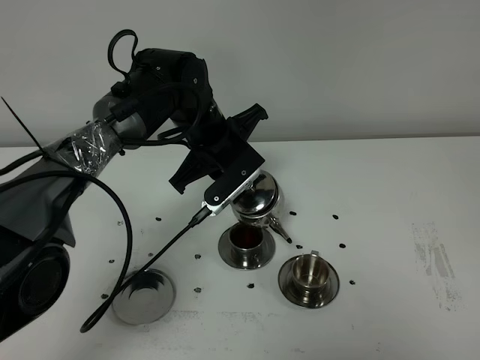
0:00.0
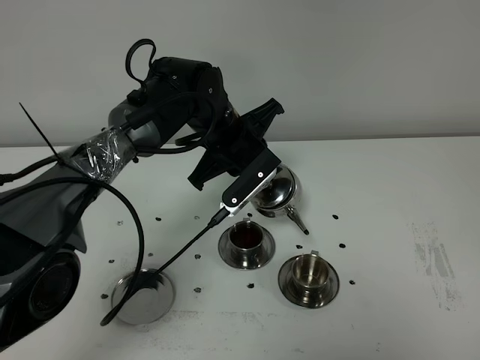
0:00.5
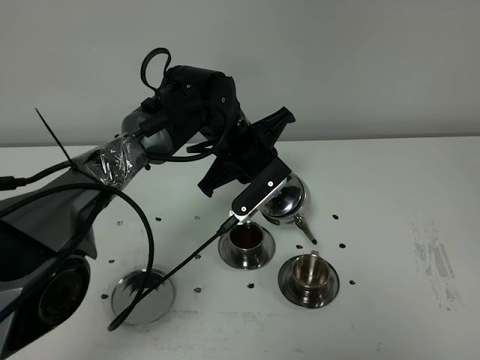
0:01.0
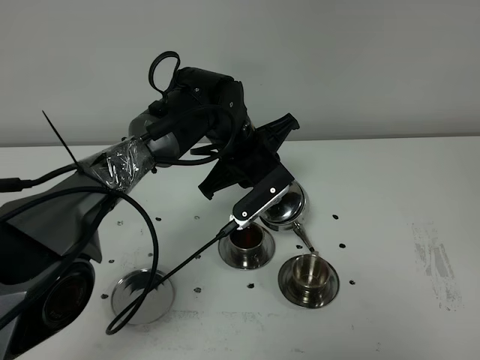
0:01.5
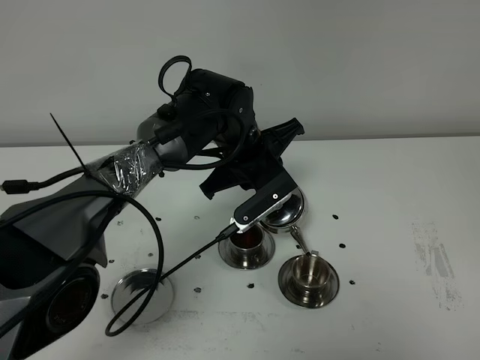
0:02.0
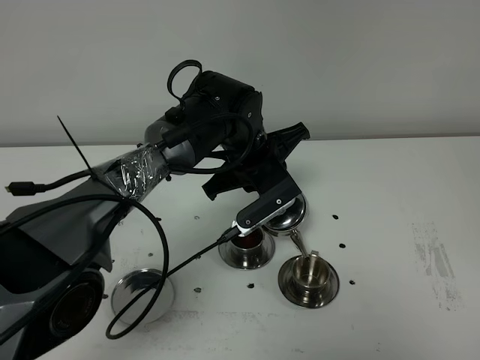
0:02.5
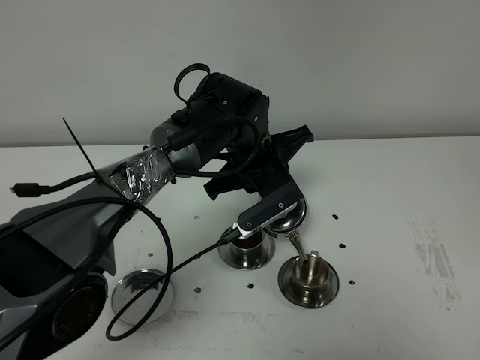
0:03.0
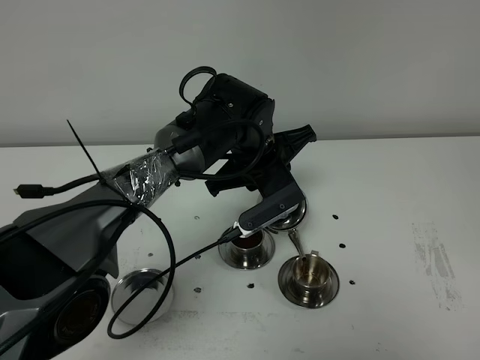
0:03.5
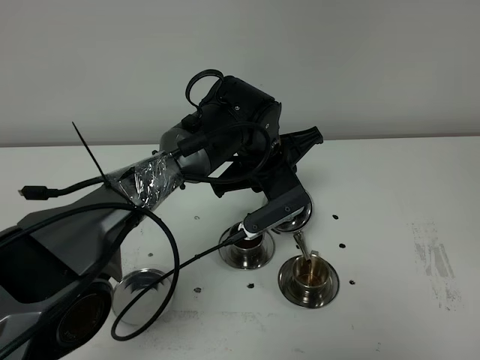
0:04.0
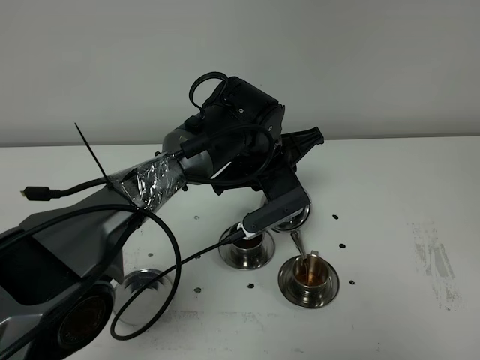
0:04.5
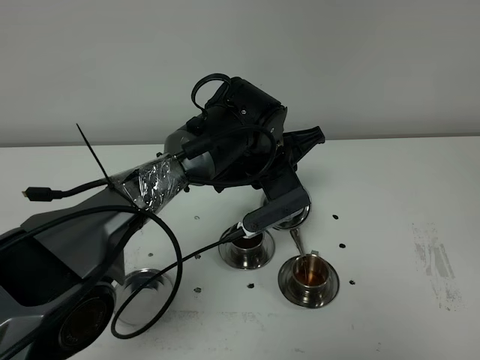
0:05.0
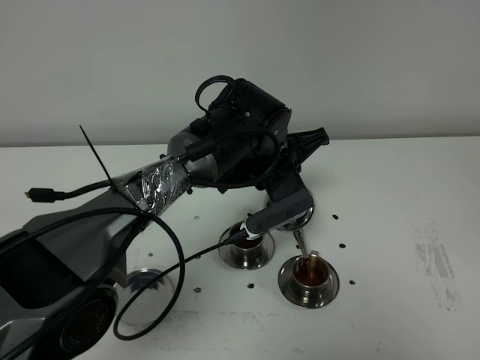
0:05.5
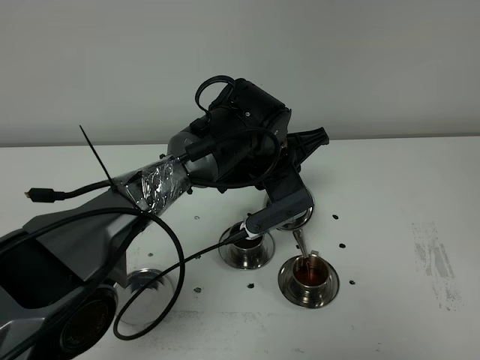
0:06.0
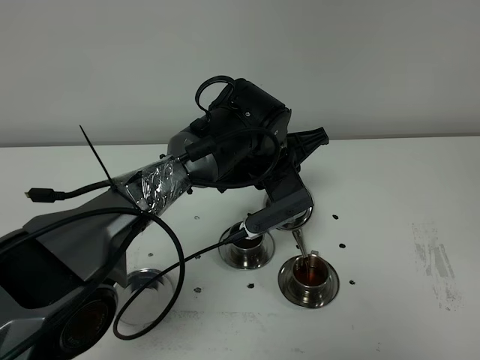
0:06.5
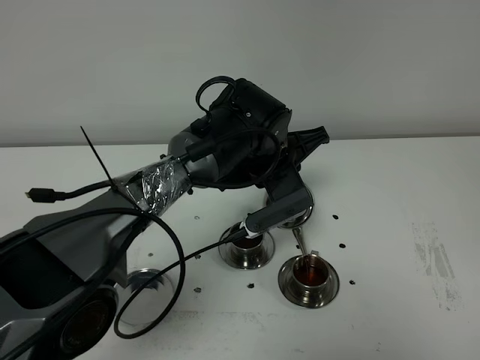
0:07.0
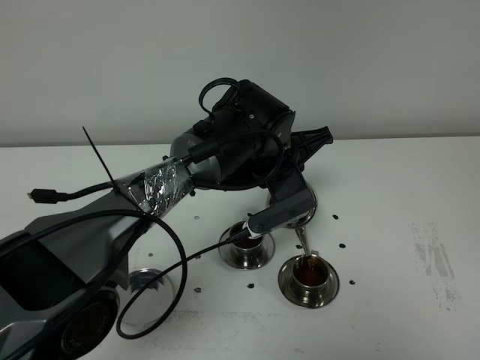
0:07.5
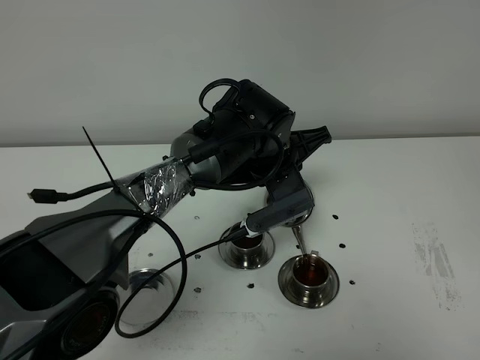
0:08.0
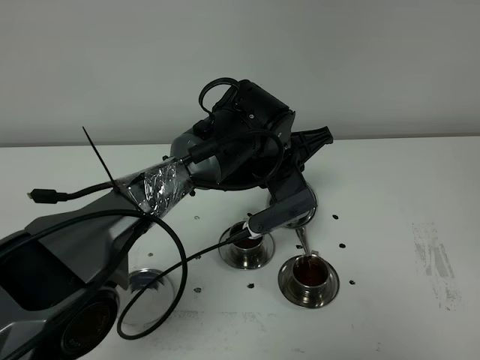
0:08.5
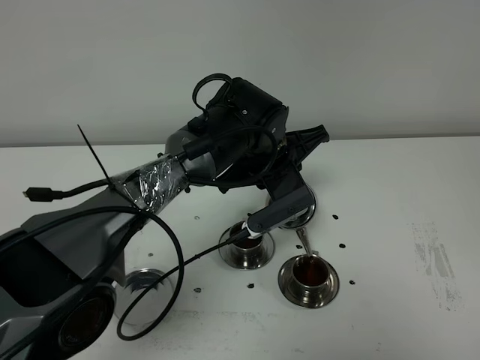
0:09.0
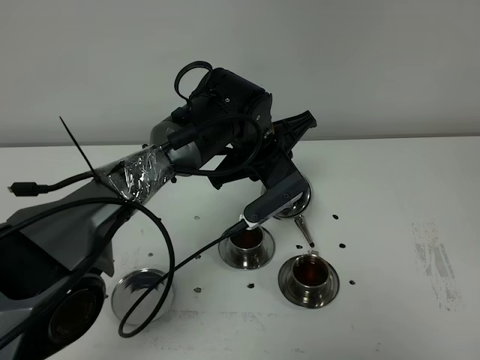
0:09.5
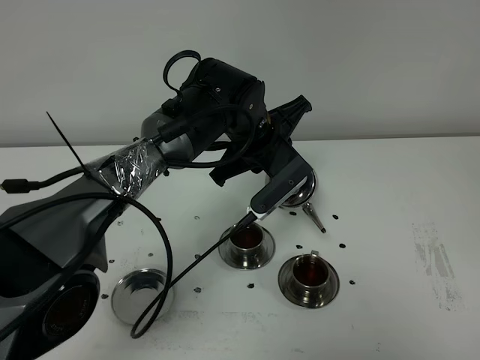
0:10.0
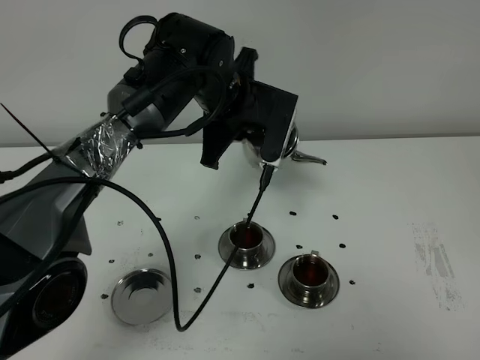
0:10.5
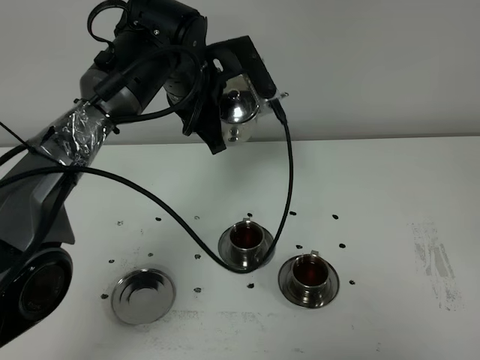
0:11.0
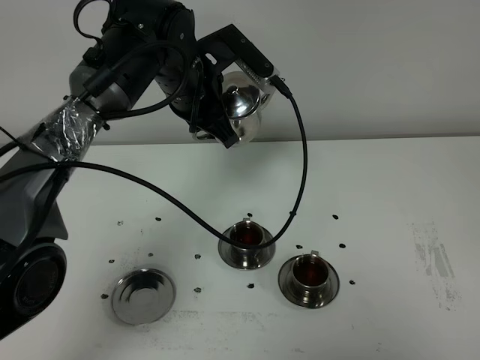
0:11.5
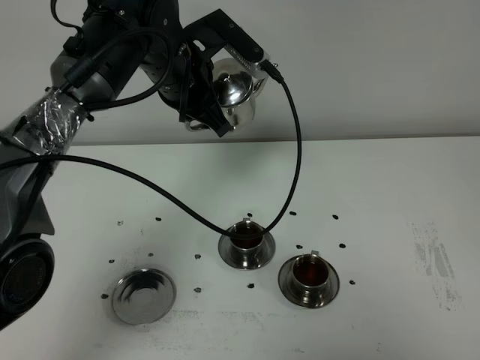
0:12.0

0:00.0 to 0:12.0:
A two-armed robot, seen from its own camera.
Task of the whole recording: grasp the stainless steel teapot and pour the tea into the two stainless steel teacups one by one, put the stainless steel teapot back in its original place.
Step, 0:00.0 to 0:09.5: Pour tea into the teacup with the left gripper.
0:00.0 to 0:02.0: The left gripper ends up approximately 5 cm from where it was.
0:02.0 to 0:04.0: There are only small adjustments of the grippers.
0:04.0 to 0:06.0: Both grippers stay put.
0:06.0 to 0:08.0: Both grippers stay about where they are.
0:08.0 to 0:10.0: The grippers move only a little.
0:10.0 to 0:12.0: The left gripper is displaced to the left and upward by approximately 10 cm.

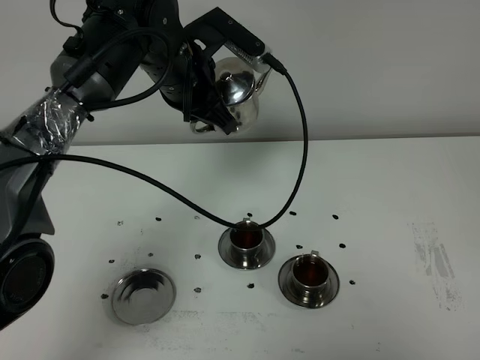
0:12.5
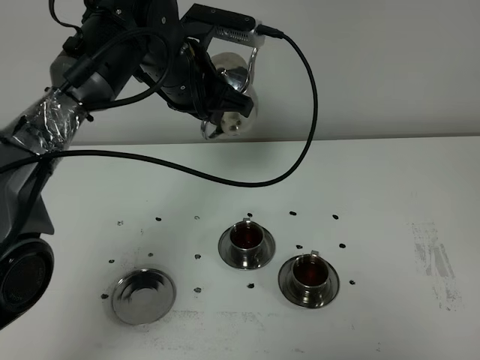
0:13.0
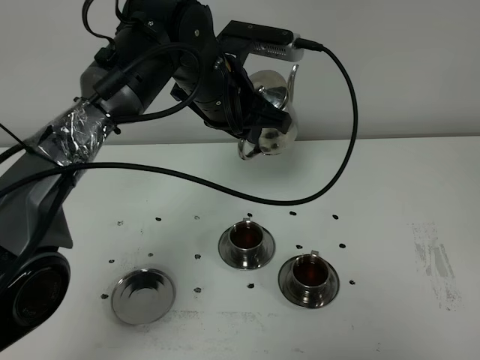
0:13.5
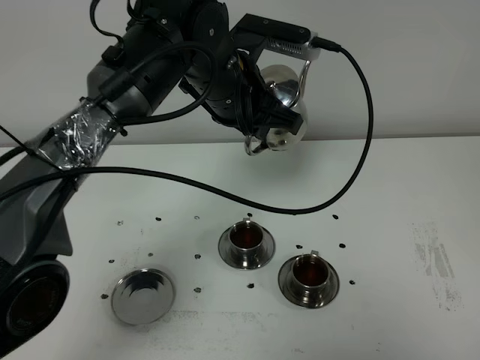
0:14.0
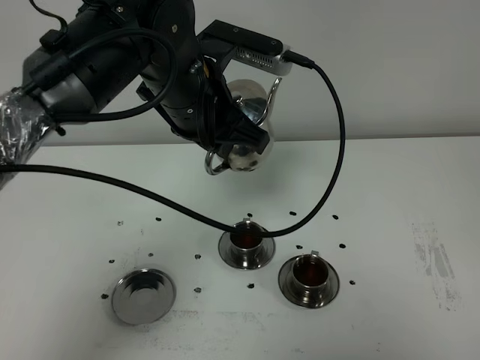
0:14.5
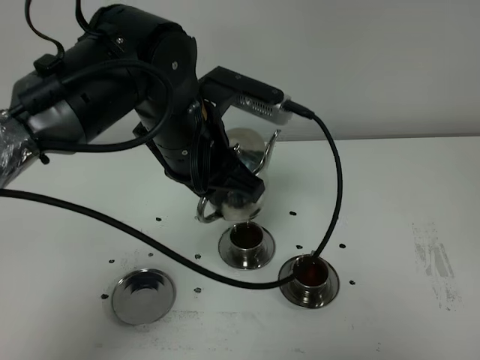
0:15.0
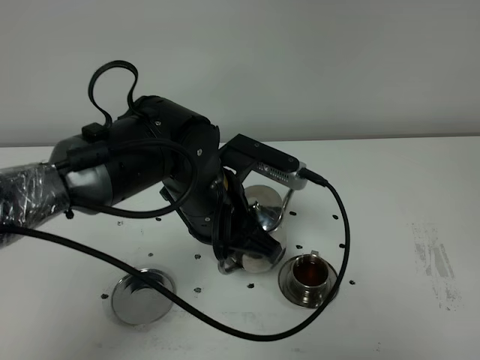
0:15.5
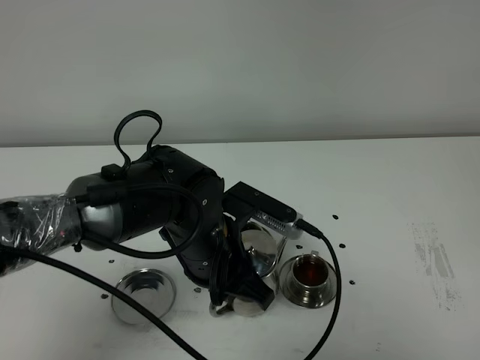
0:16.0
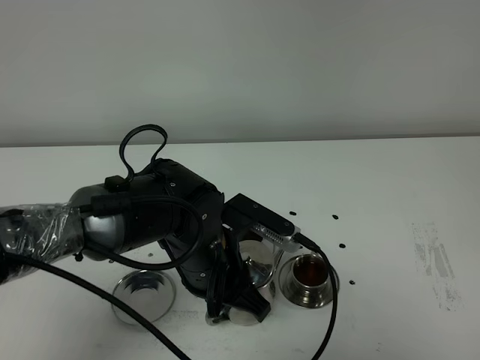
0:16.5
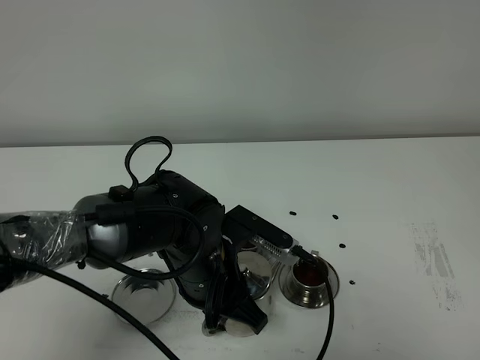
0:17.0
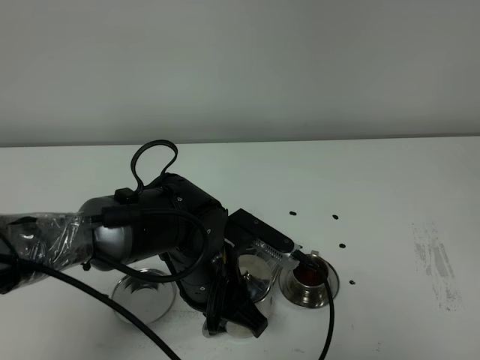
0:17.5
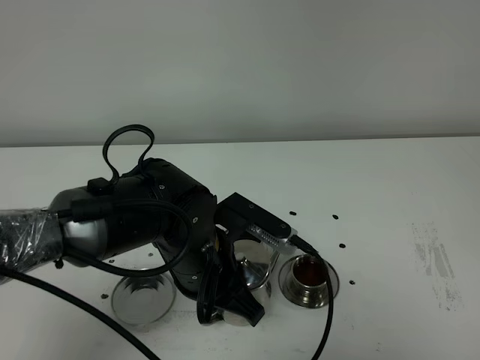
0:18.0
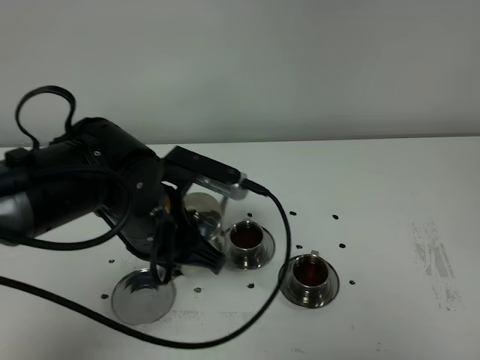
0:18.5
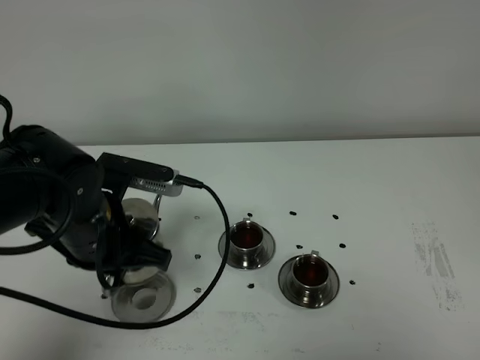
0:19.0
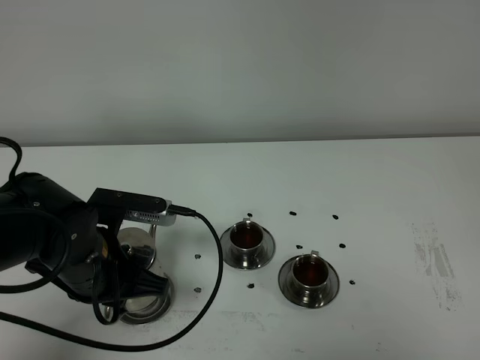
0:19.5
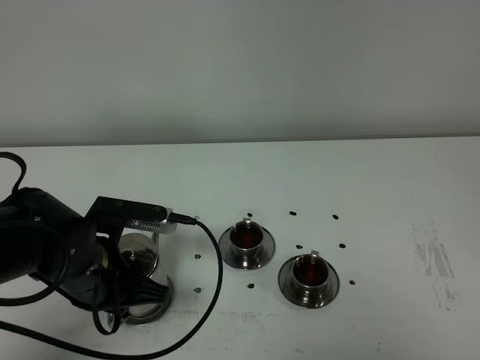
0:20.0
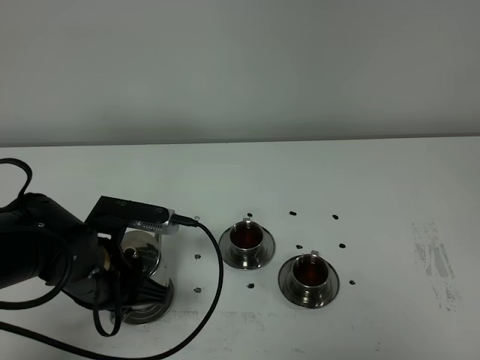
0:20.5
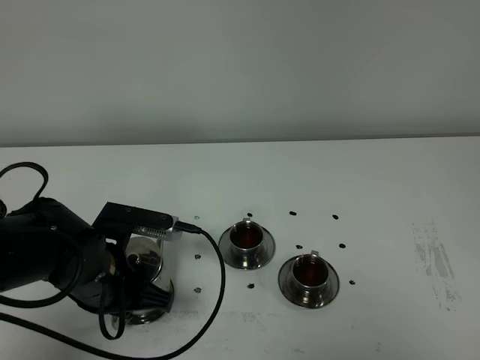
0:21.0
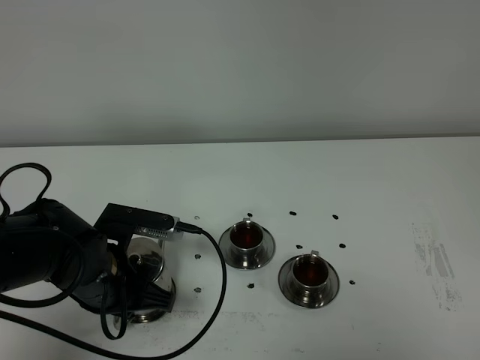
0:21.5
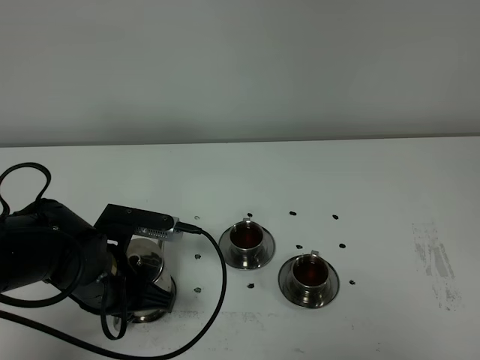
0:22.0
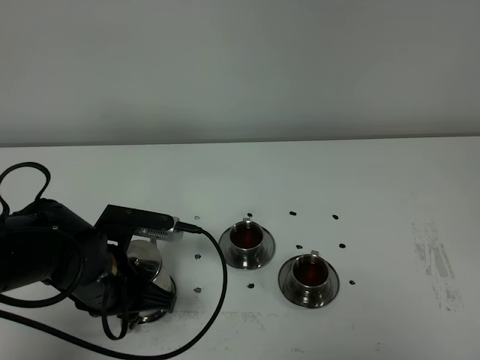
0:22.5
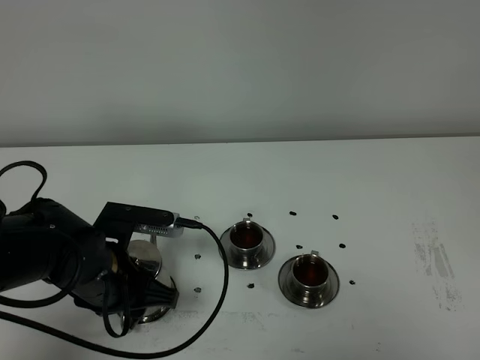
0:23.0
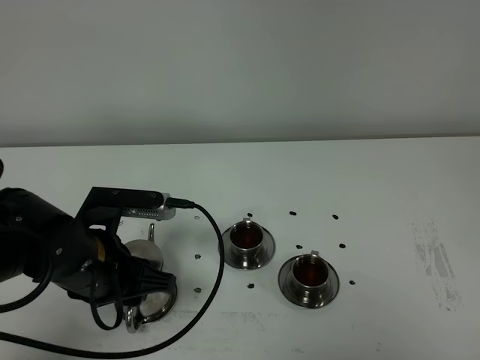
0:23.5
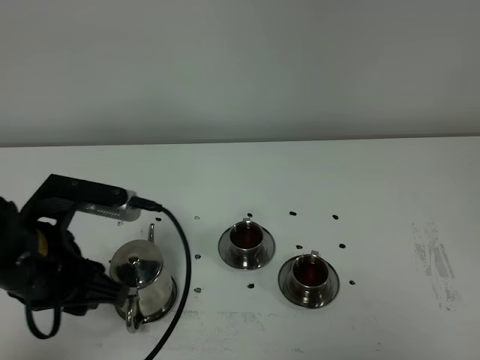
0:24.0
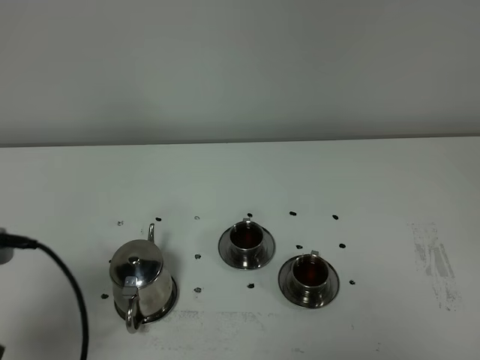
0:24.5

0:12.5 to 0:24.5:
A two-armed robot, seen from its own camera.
Task of the whole recording: grasp the stainless steel teapot and pour the tea into the two stainless steel teacups one by one, put the stainless steel teapot back in its original place.
0:12.5 to 0:14.5: The left gripper shifts approximately 10 cm backward.
0:14.5 to 0:16.5: The left gripper heads downward and backward, covering roughly 20 cm.
0:16.5 to 0:18.5: The left gripper moves upward and to the left, about 10 cm.
0:18.5 to 0:20.5: The left gripper travels downward and to the left by approximately 10 cm.
0:20.5 to 0:22.5: The left gripper opens up.
0:22.5 to 0:24.5: The left gripper heads upward, backward and to the left, covering some 20 cm.

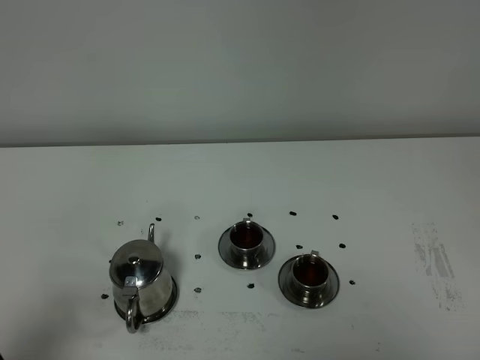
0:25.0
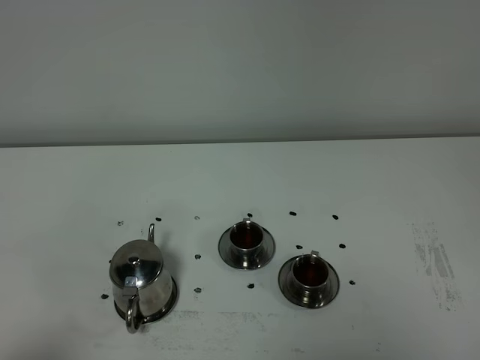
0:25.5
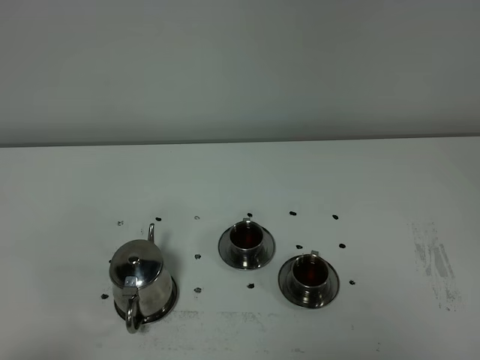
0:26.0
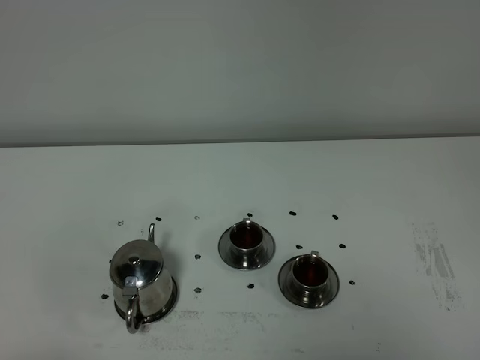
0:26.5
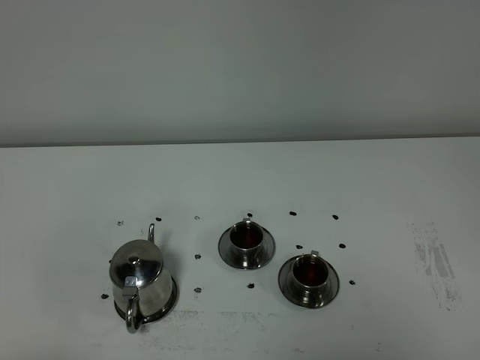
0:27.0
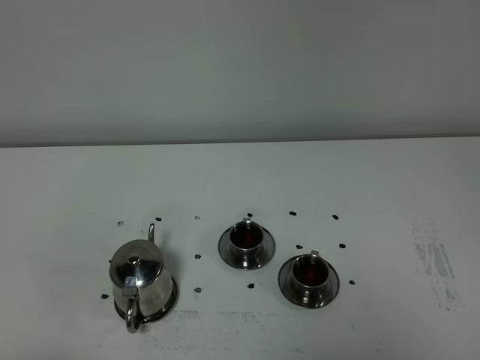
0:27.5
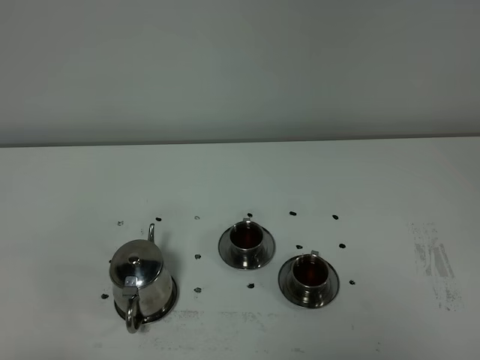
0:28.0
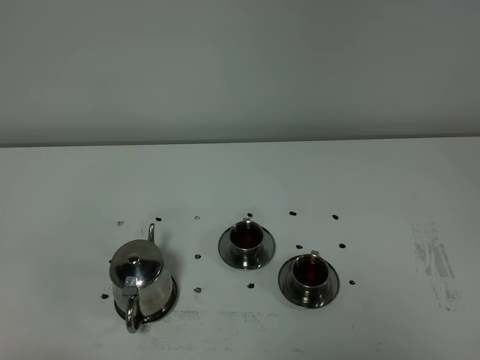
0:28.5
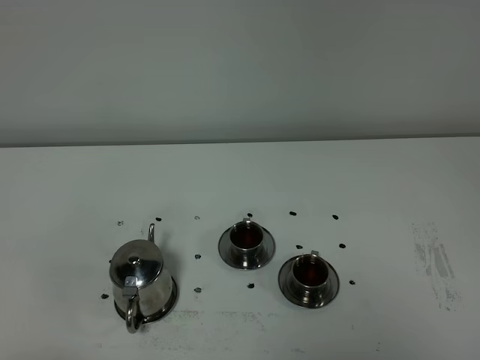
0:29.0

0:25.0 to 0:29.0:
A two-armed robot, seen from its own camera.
Task of the whole recording: grasp the stainless steel teapot and pour the tea into the two stainless steel teacups one by one, put the stainless steel teapot back in its original place.
0:25.0 to 0:27.0: The left gripper goes some 10 cm backward.
0:27.0 to 0:29.0: Both grippers stay put.
